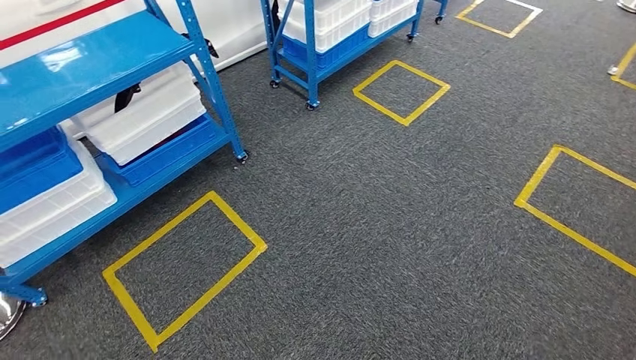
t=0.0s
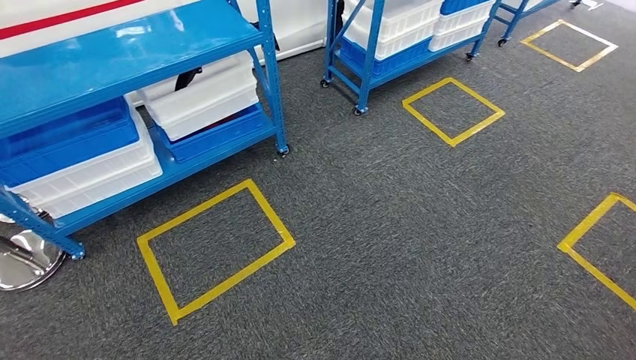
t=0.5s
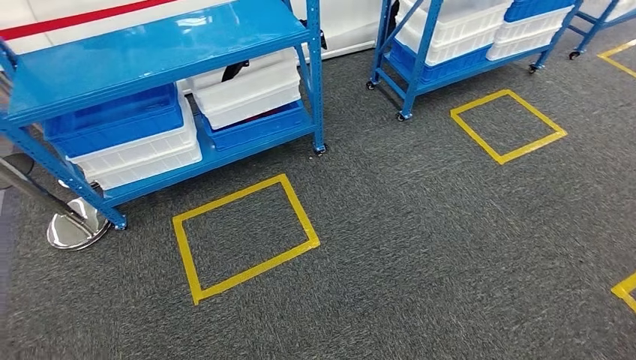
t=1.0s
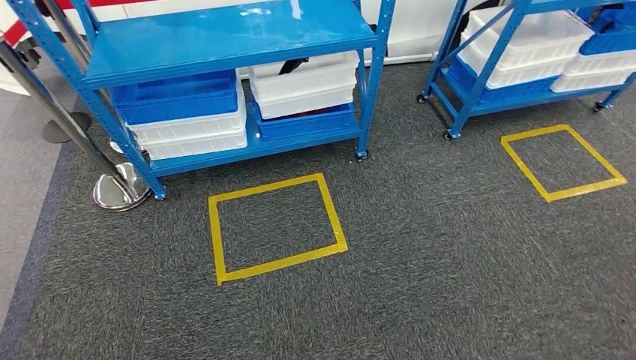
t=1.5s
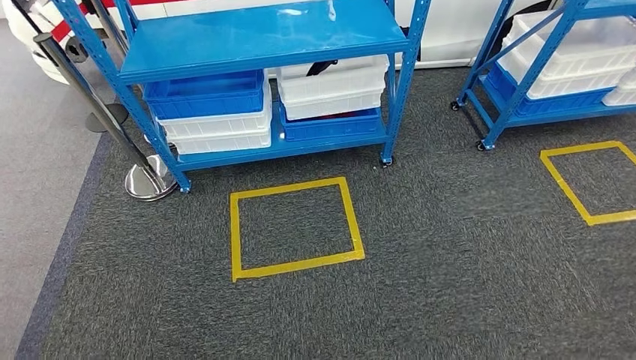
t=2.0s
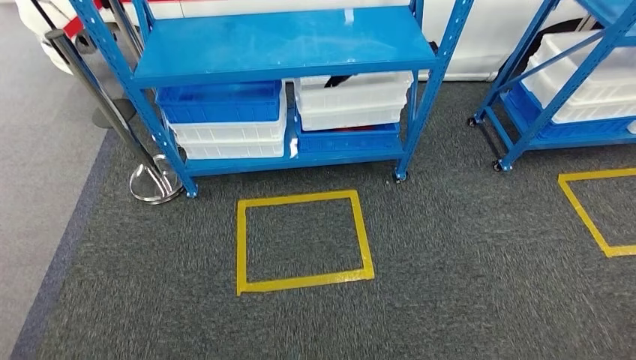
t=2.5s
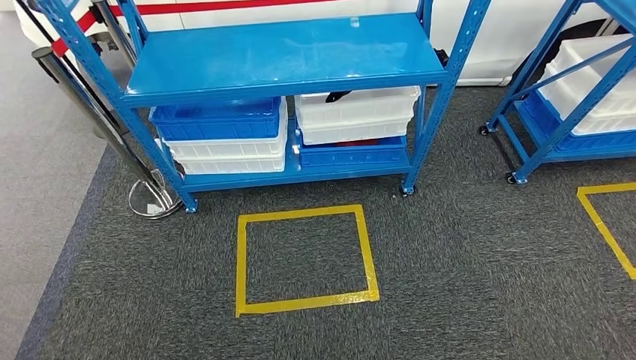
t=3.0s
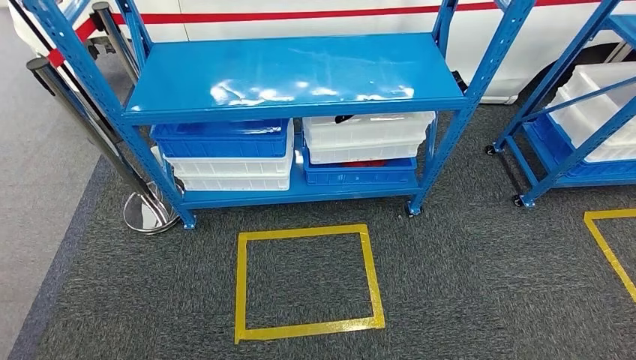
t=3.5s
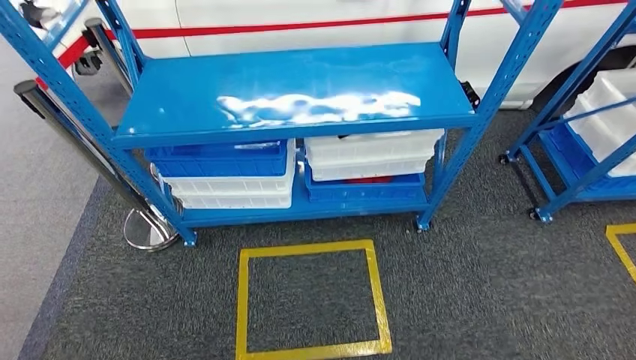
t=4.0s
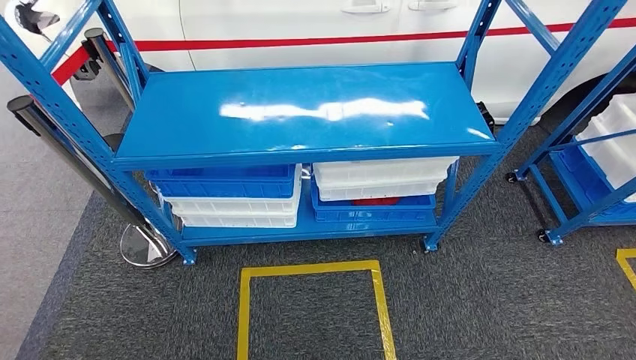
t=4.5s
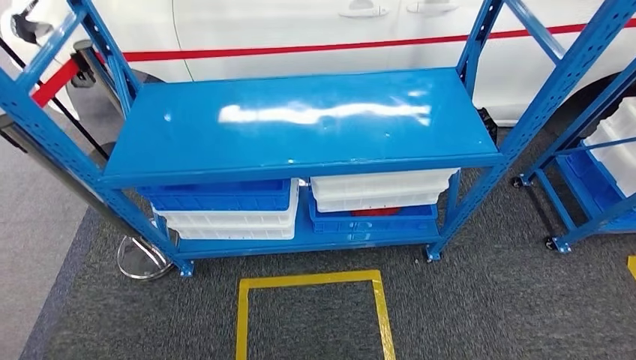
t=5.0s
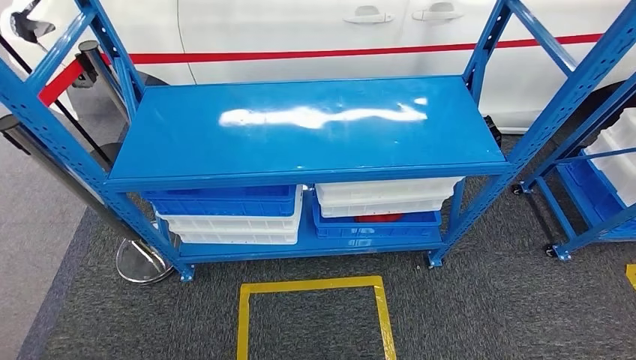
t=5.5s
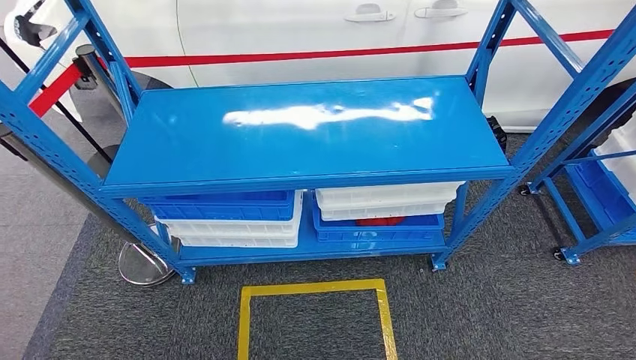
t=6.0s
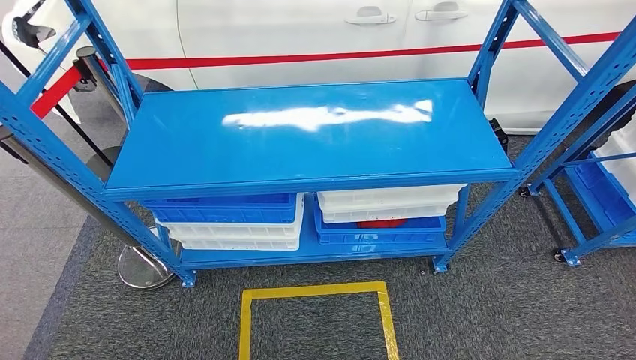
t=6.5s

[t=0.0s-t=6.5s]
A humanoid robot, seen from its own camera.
Step, t=0.0s to t=6.5s: Return to the initial position at the shelf.
